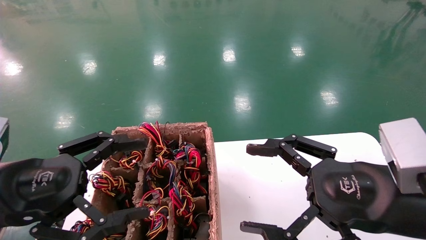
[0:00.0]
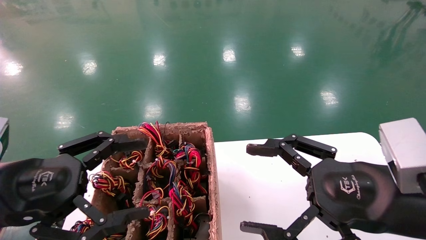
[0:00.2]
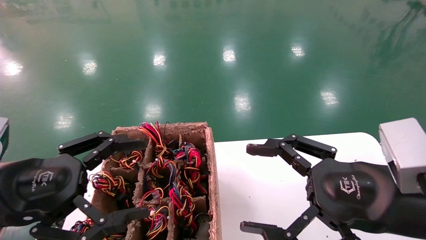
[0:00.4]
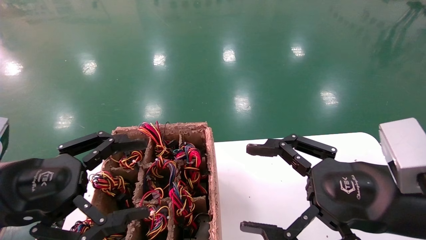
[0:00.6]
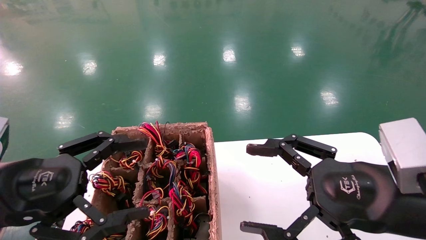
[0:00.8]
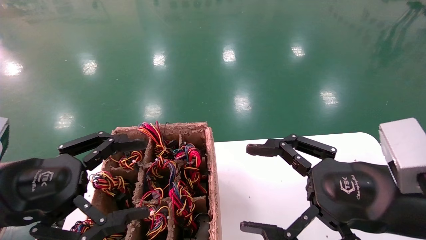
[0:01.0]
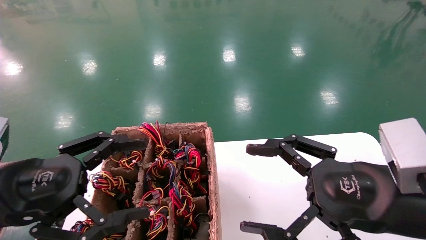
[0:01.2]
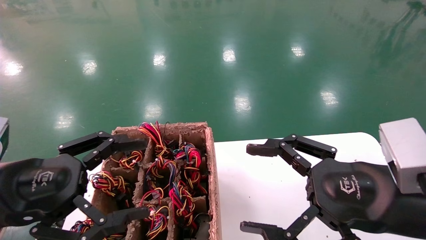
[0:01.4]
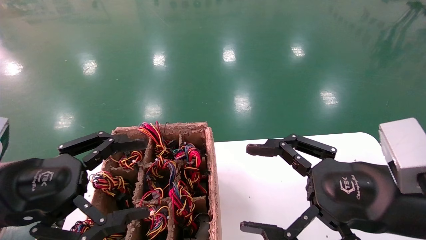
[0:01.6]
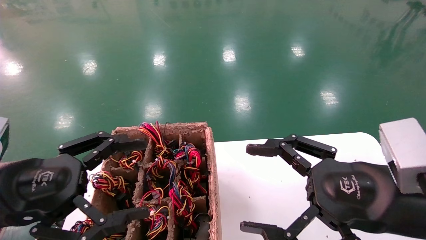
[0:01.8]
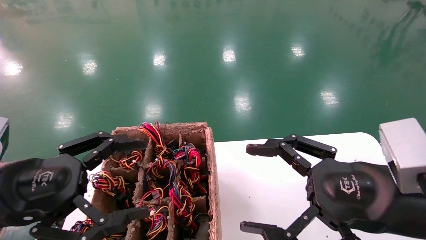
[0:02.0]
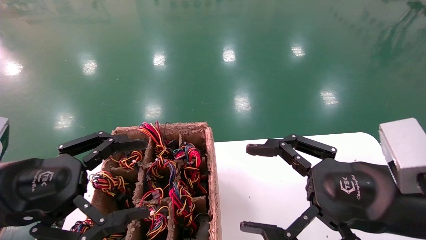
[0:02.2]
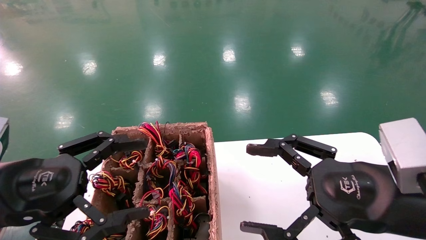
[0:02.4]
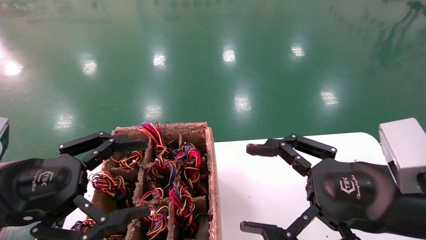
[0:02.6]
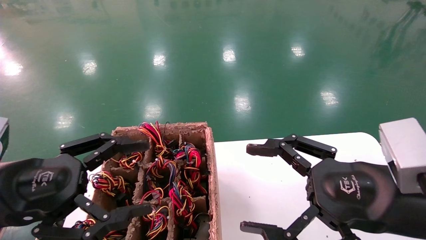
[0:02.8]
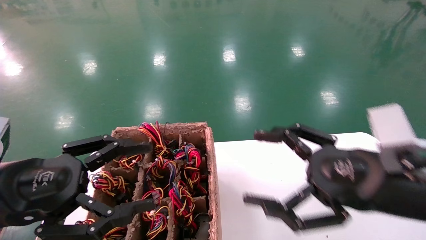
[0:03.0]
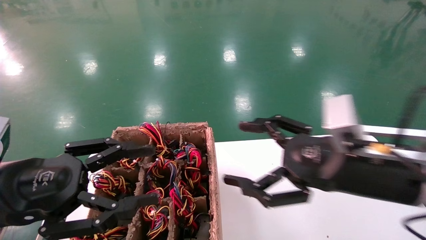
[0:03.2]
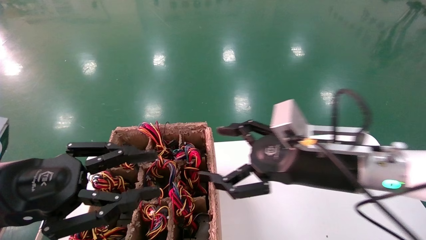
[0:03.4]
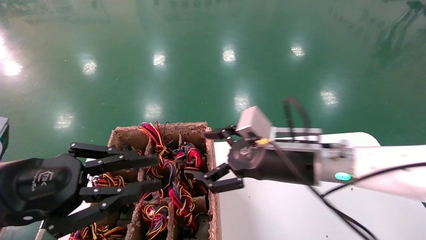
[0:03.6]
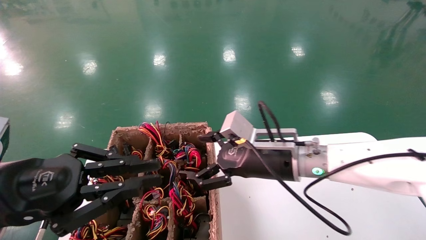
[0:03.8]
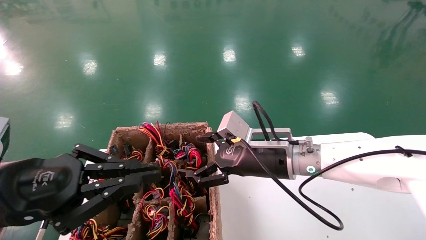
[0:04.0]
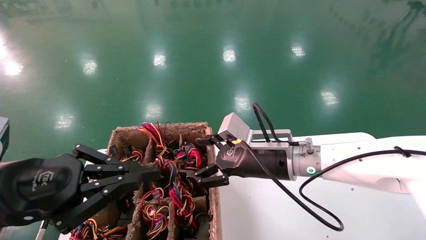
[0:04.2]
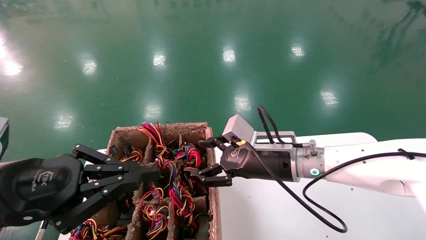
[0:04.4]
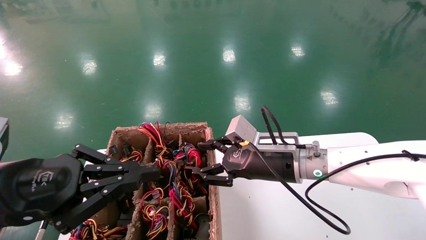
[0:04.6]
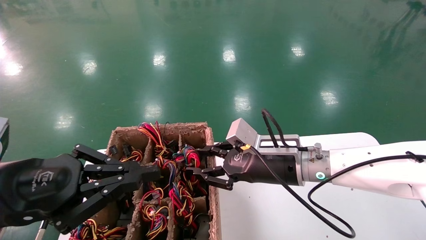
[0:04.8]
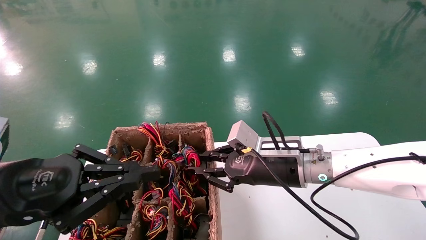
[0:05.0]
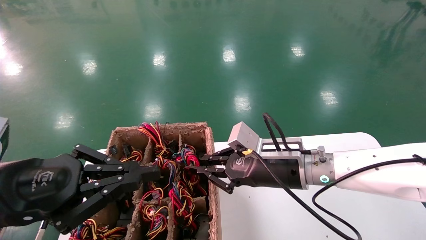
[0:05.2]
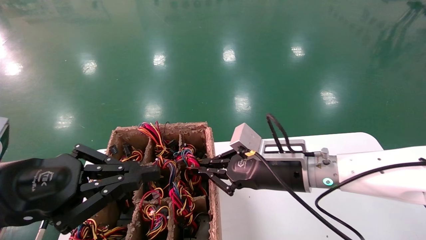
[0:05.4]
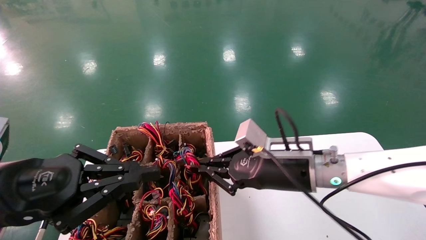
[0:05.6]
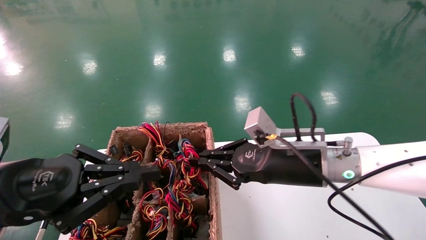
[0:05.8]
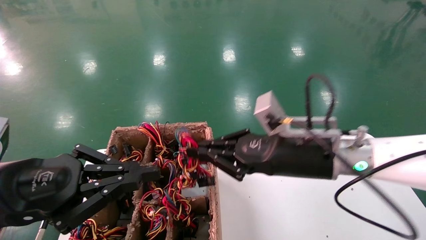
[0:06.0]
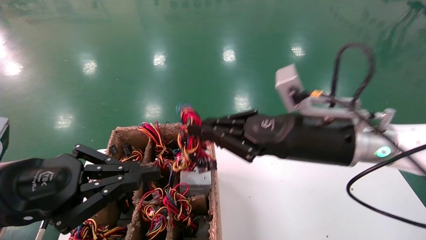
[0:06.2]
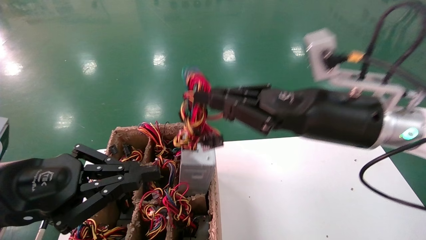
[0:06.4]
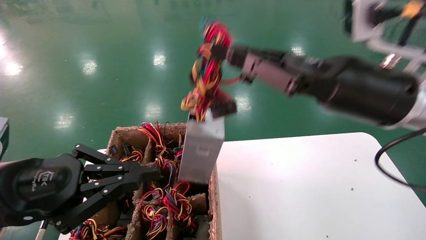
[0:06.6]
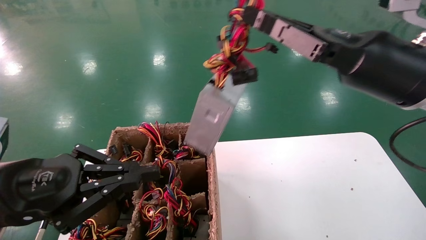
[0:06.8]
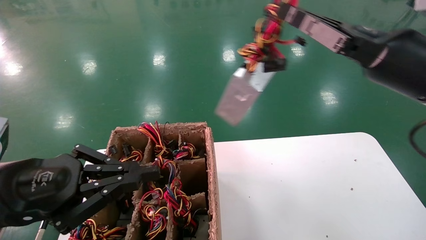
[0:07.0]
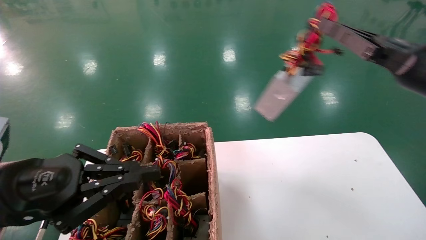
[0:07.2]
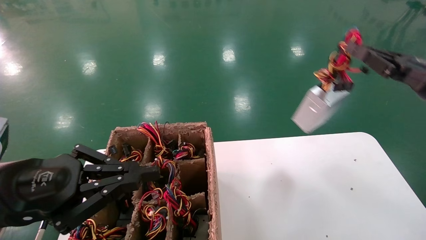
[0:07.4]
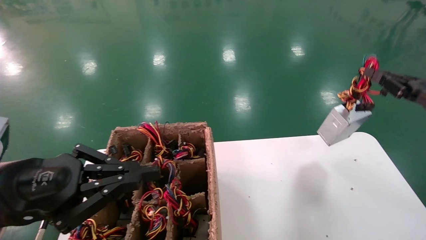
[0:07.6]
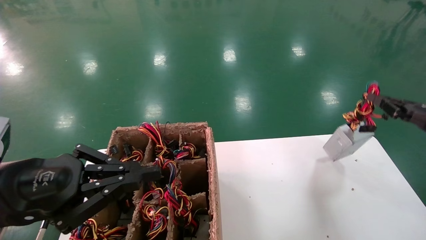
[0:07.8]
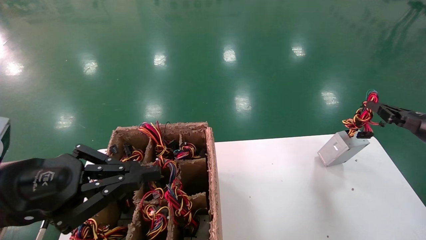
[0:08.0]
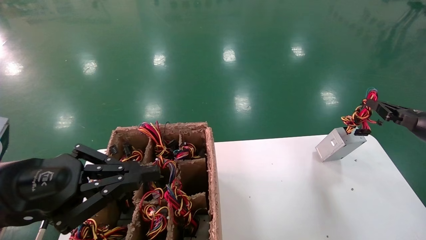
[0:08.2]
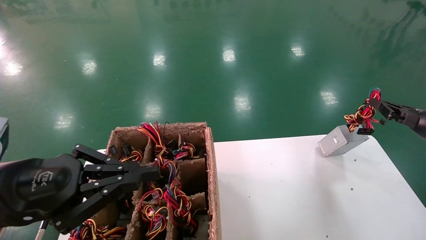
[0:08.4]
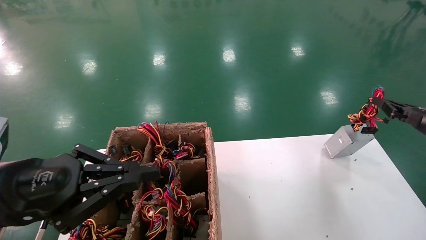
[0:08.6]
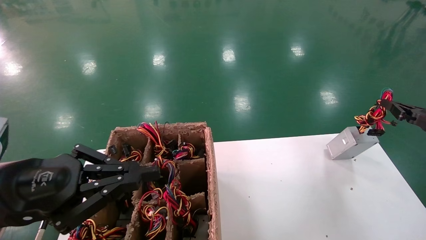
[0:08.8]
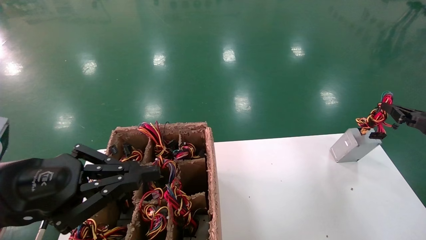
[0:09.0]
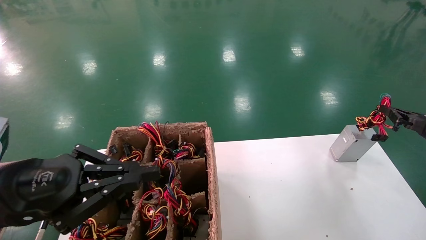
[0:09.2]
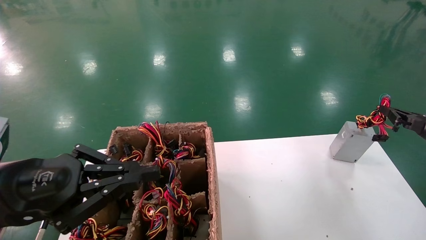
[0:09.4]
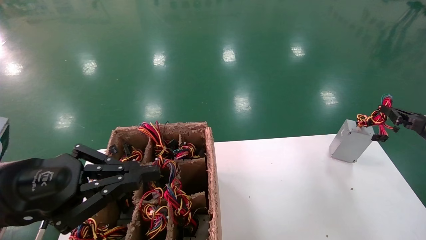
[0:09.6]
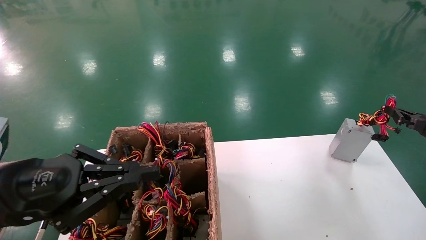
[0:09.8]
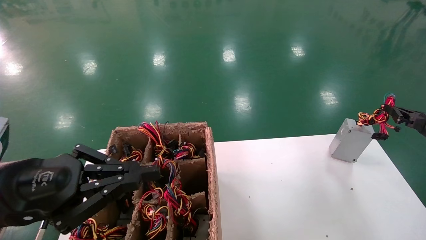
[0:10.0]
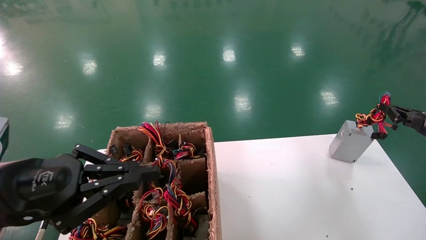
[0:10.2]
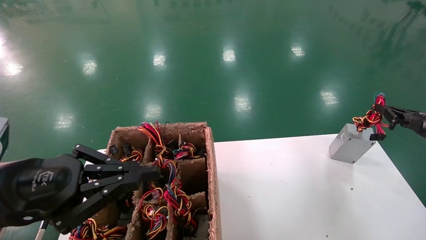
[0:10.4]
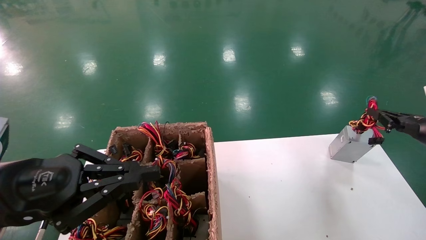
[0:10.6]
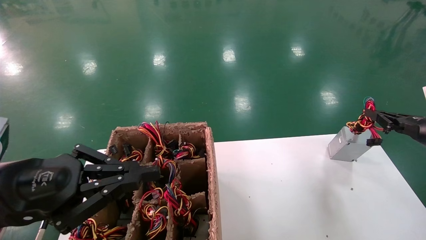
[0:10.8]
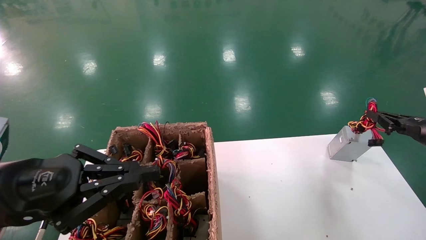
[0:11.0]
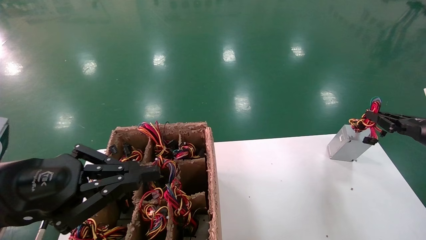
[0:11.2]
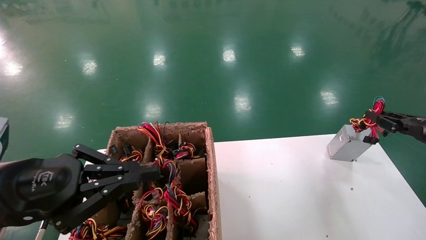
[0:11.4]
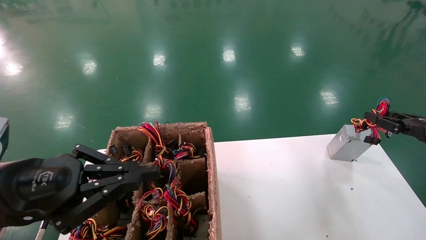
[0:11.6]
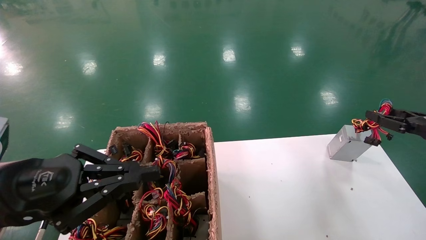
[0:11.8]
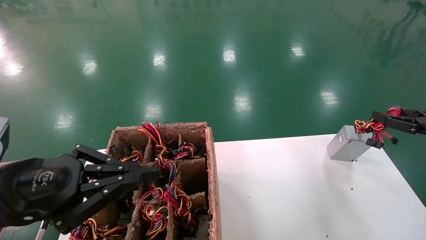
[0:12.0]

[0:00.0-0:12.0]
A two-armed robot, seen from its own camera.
Step, 0:03.4 to 0:05.8: Grab the main unit power supply from the containment box.
0:00.0 to 0:01.6: Both grippers stay about where they are.
0:01.6 to 0:03.0: The grippers stay close to where they were, moving slightly.
0:03.0 to 0:04.4: The left gripper closes its fingers, while the right gripper travels forward and to the left by about 15 cm.
0:04.4 to 0:06.0: The right gripper shifts roughly 5 cm backward and upward, and closes its fingers.
0:06.0 to 0:07.6: The right gripper shifts some 30 cm to the right.
0:07.6 to 0:09.0: The right gripper travels to the right and downward by about 10 cm.
0:09.0 to 0:10.4: Both grippers stay put.
0:10.4 to 0:12.0: The right gripper opens.

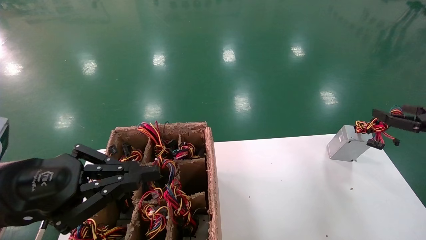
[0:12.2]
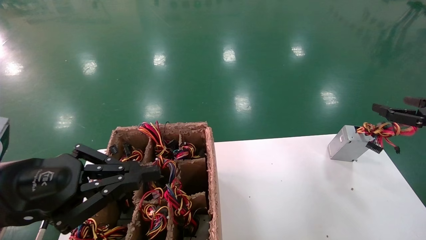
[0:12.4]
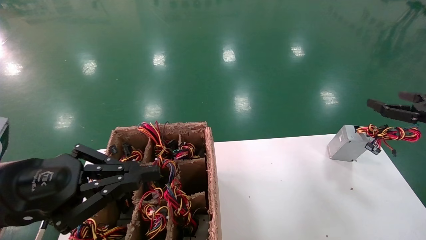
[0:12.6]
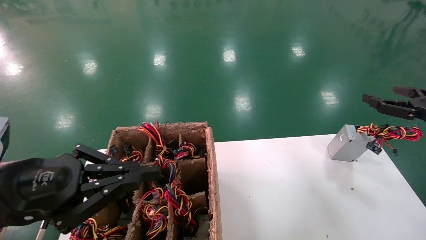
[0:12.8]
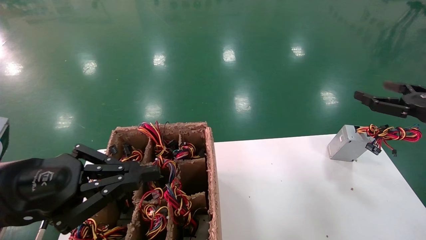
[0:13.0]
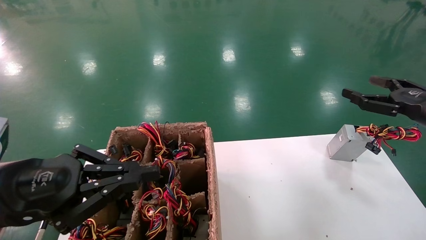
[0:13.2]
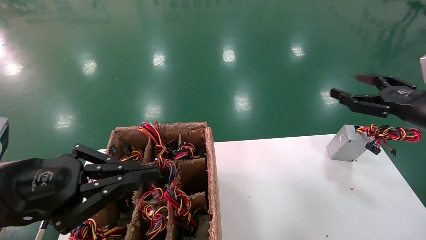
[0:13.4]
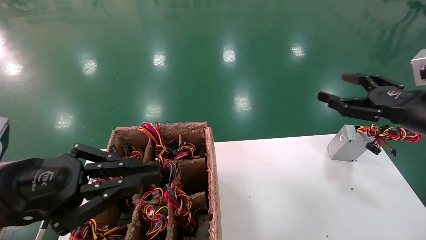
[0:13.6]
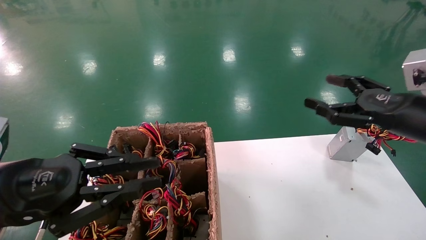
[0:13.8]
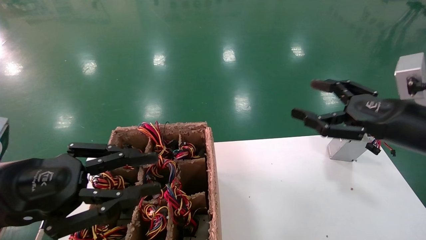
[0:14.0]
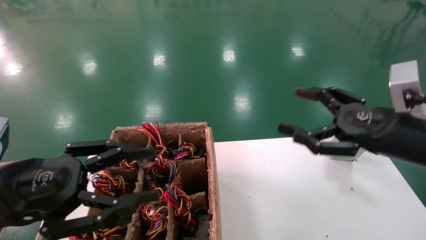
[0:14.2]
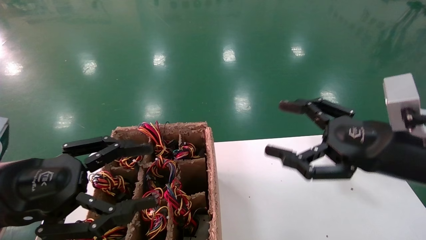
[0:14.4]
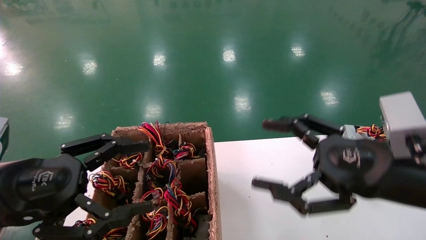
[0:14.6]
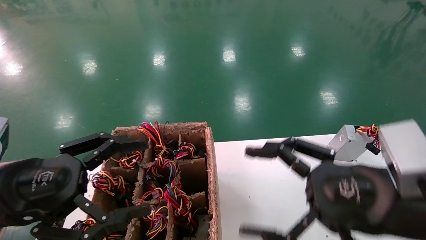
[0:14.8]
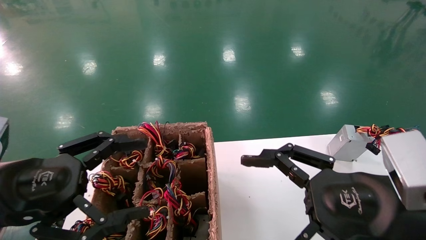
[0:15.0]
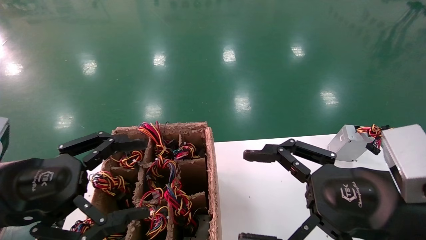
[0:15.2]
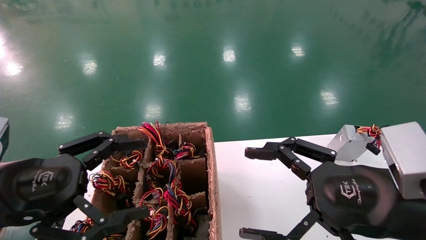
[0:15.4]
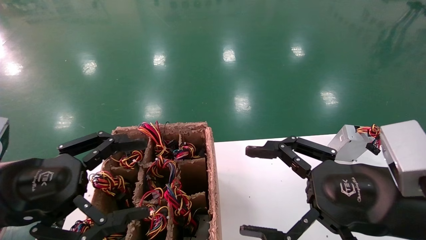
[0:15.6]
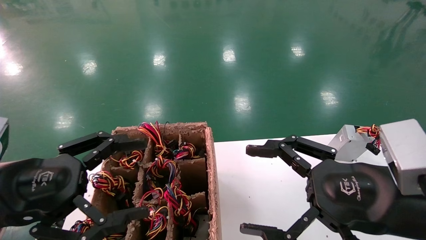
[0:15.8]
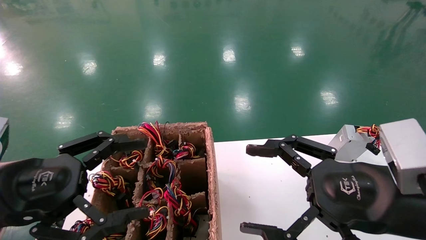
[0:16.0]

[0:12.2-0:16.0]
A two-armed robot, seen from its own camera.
0:12.2 to 0:13.4: The right gripper travels to the left by approximately 10 cm.
0:13.4 to 0:14.8: The left gripper opens. Meanwhile the right gripper travels to the left and backward by about 20 cm.
0:14.8 to 0:16.0: There are only small adjustments of the grippers.

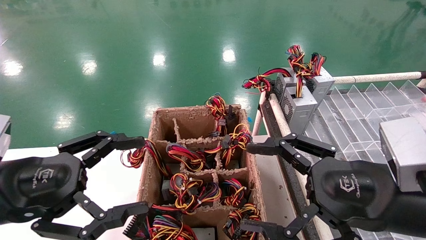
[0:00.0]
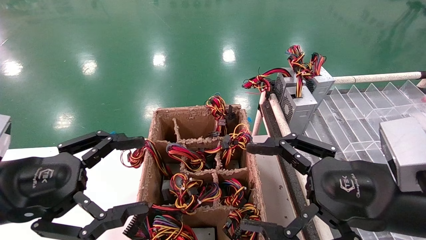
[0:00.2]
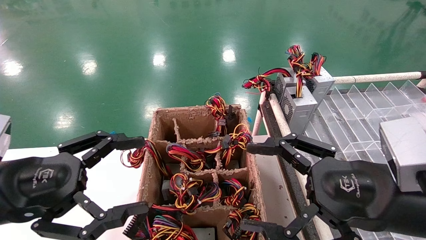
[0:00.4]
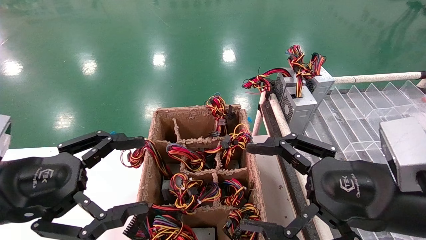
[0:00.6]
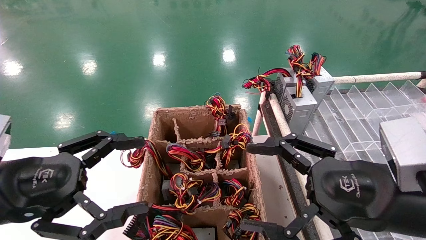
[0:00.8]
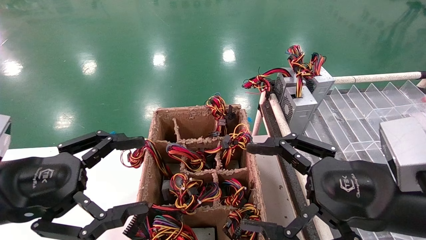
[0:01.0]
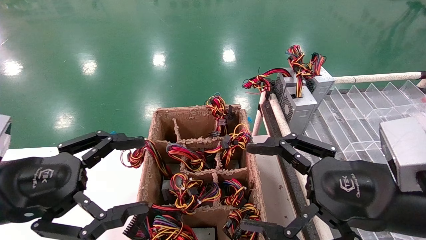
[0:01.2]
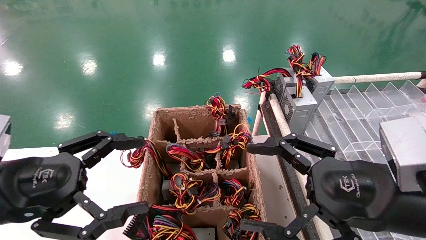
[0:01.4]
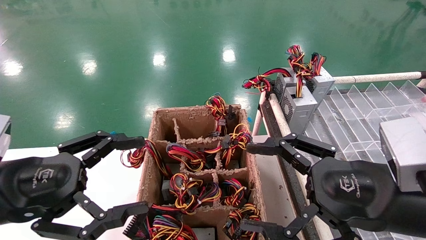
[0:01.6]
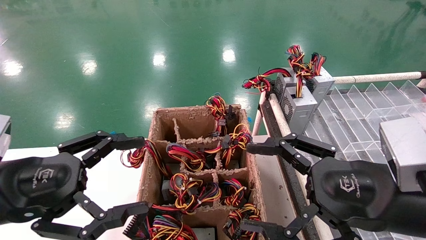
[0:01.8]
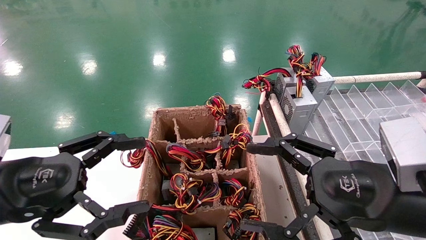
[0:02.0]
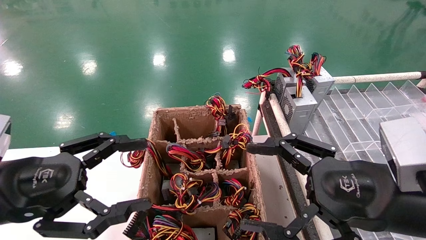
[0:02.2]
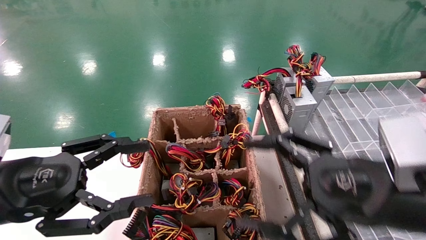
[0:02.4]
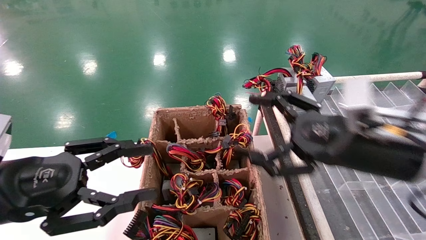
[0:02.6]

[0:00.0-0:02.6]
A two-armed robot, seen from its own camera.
0:00.0 to 0:01.2: Both grippers stay put.
0:01.2 to 0:02.6: The right gripper is displaced forward by about 10 cm.
